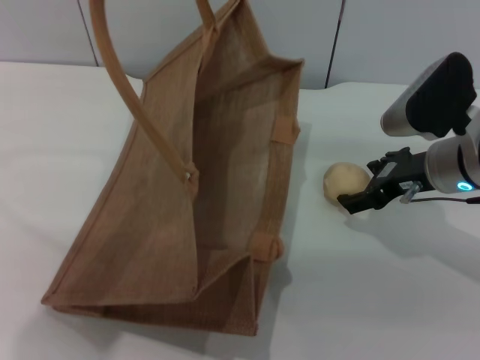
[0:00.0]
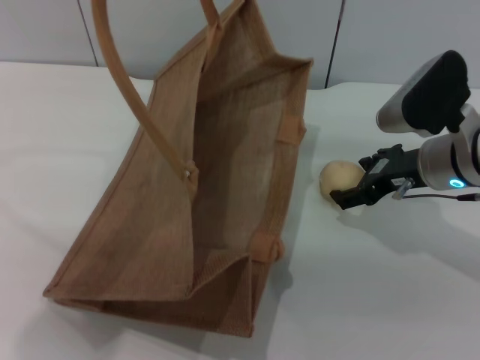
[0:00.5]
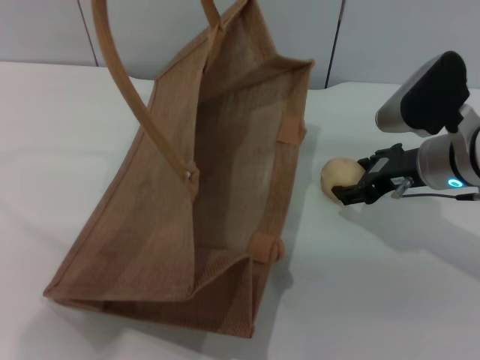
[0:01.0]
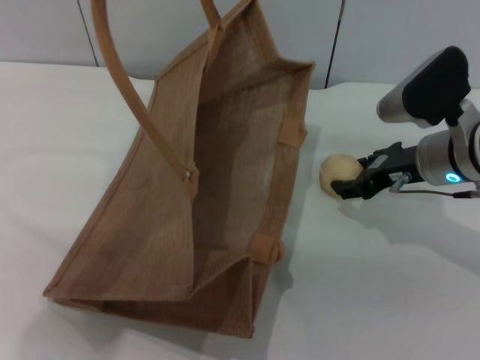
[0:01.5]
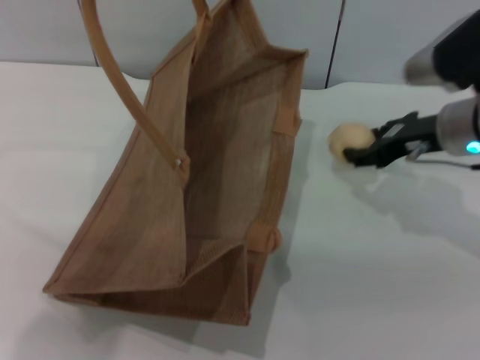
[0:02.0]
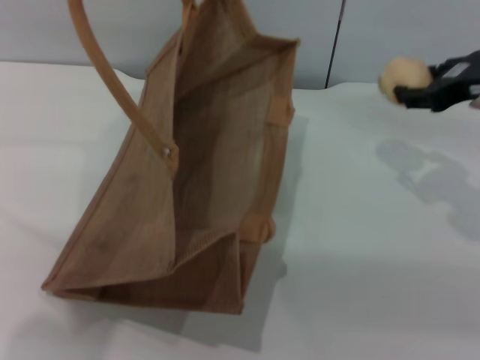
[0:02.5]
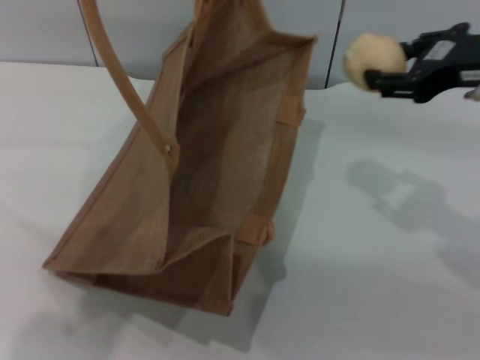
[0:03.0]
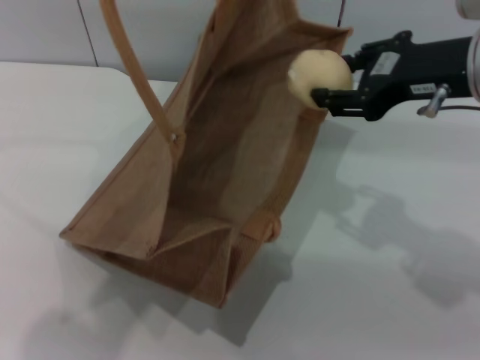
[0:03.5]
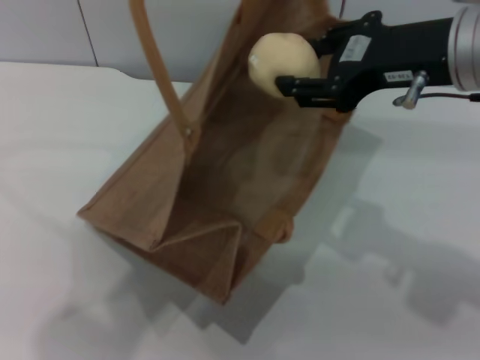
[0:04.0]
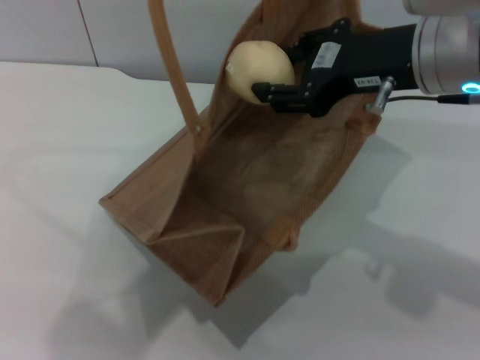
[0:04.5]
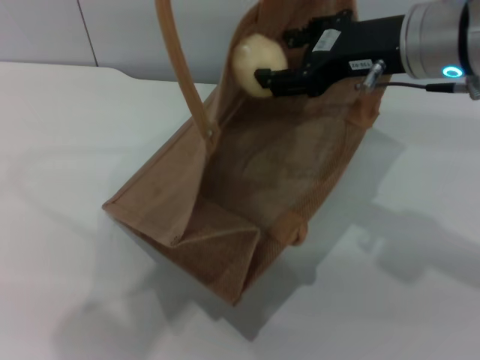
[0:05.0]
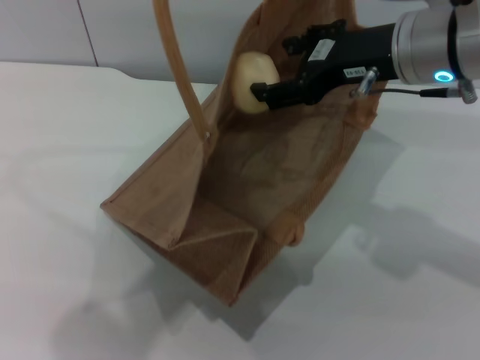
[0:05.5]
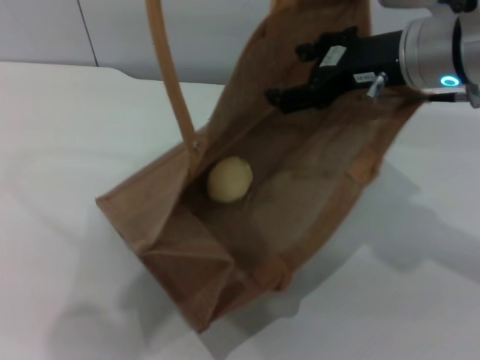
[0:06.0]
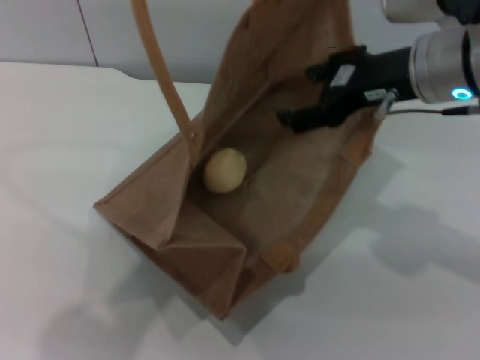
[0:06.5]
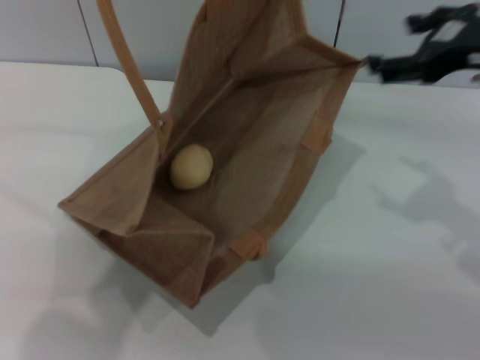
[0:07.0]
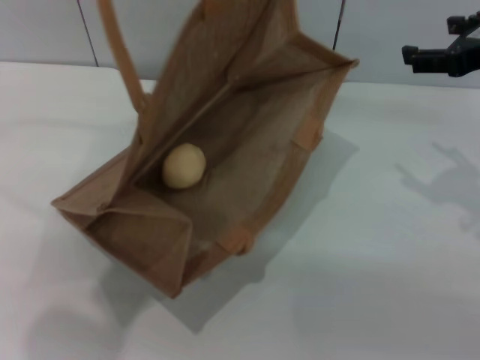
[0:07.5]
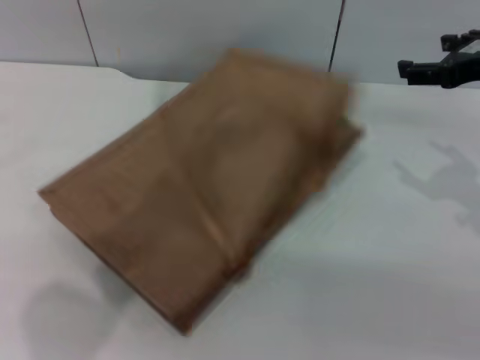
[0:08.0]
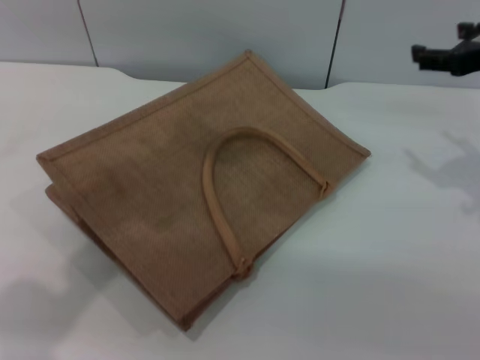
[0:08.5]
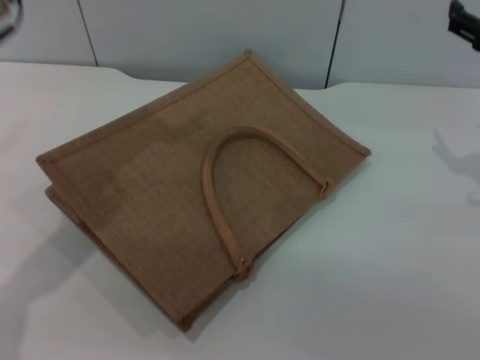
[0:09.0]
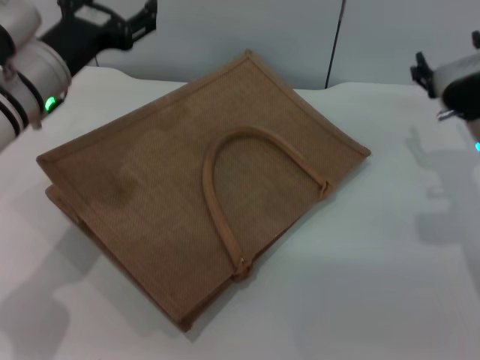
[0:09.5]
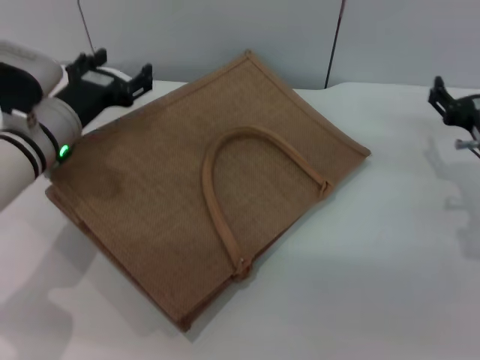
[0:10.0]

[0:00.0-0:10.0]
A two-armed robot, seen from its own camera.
Task of the whole recording: pick up the egg yolk pastry from the table and place it in the brown handbag.
Step, 0:00.0 to 0:02.0: Pick up the egg yolk pastry with the right gripper.
Step, 0:02.5 to 0:06.5: Place the egg yolk pastry into the woven bag with the right gripper.
Step, 0:07.0 to 0:08.5: Lower the woven bag with the left gripper to close it.
0:00.0 to 0:02.0: The right gripper closes.
0:02.0 to 0:04.0: The right gripper heads upward and backward, covering about 15 cm.
0:04.0 to 0:06.0: The right gripper ends up approximately 5 cm from where it was, and opens its fingers.
0:06.0 to 0:08.0: The right gripper shifts approximately 10 cm to the right. The left gripper opens.
0:08.0 to 0:10.0: The right gripper goes about 15 cm downward; the left gripper travels downward by about 30 cm.

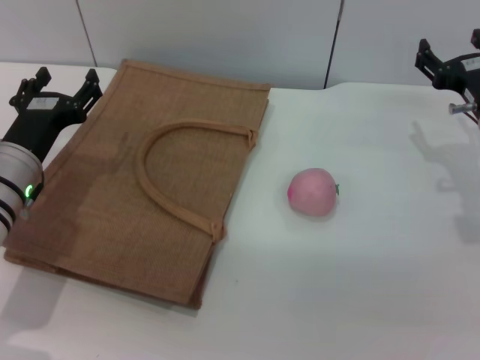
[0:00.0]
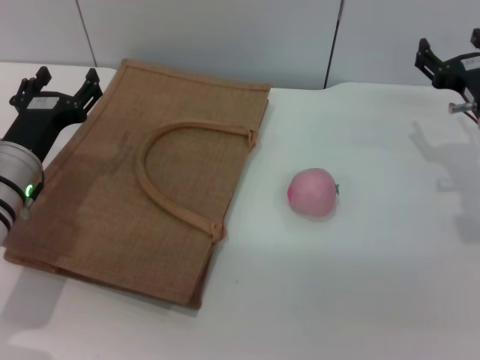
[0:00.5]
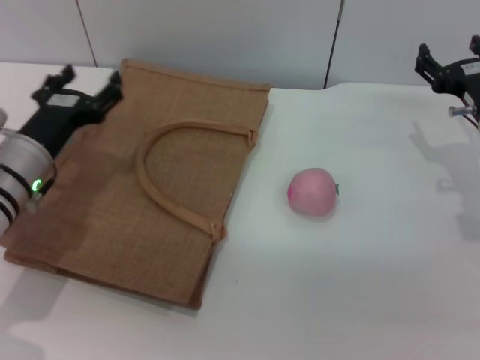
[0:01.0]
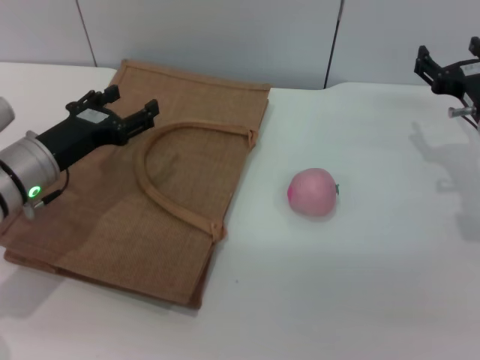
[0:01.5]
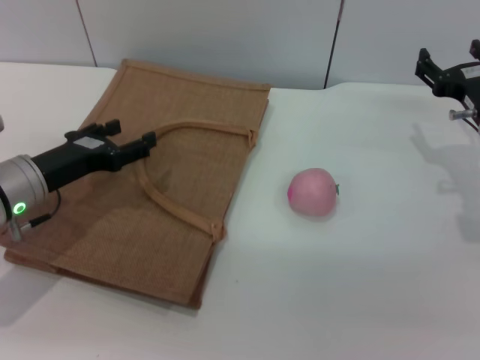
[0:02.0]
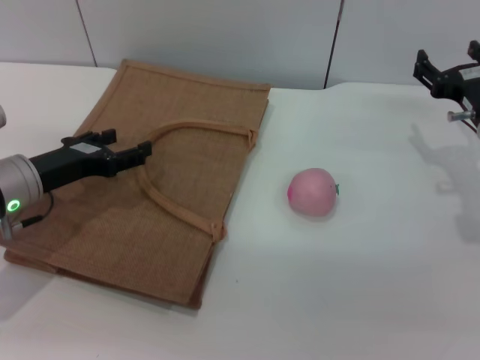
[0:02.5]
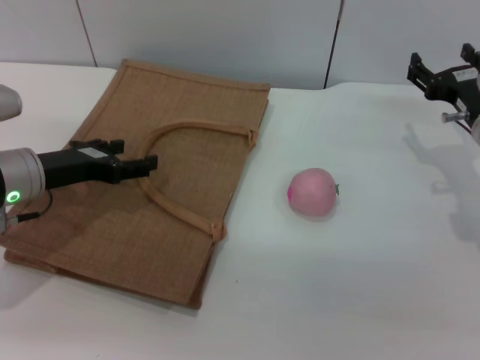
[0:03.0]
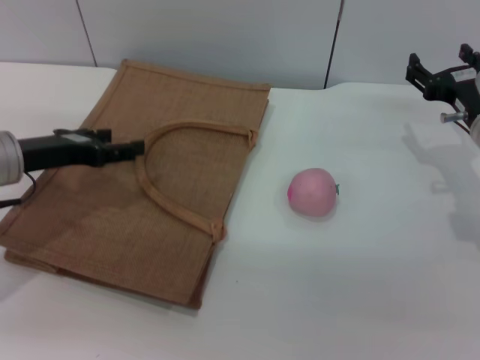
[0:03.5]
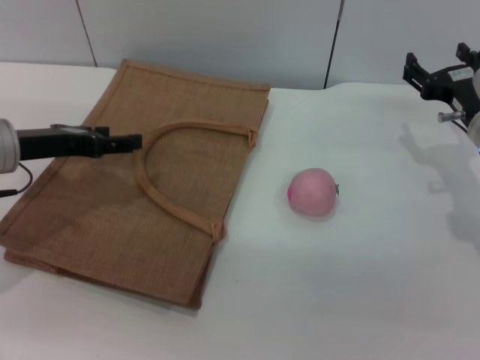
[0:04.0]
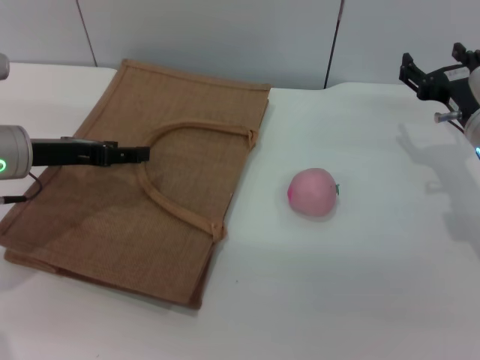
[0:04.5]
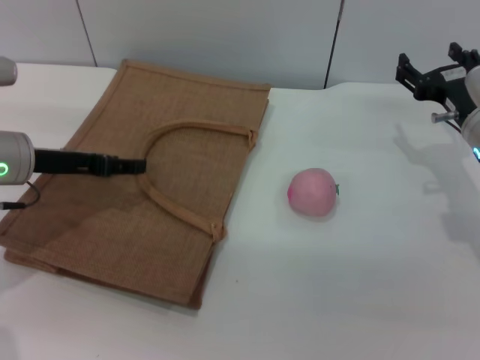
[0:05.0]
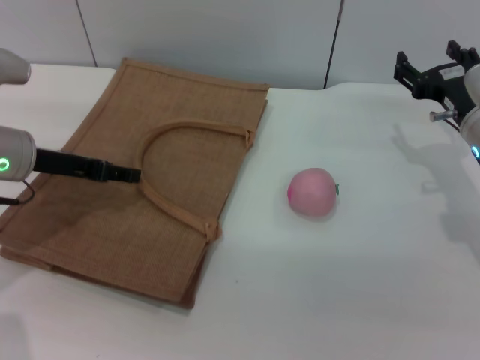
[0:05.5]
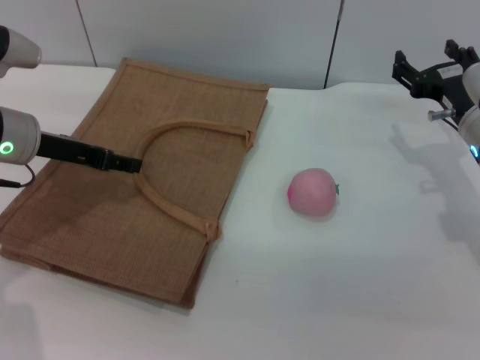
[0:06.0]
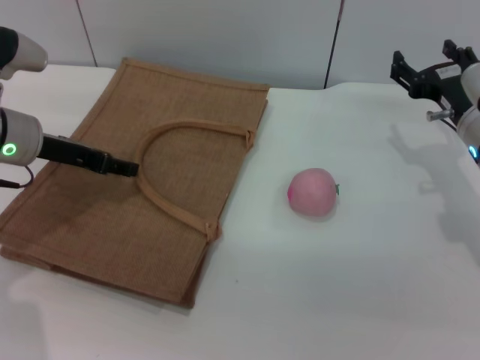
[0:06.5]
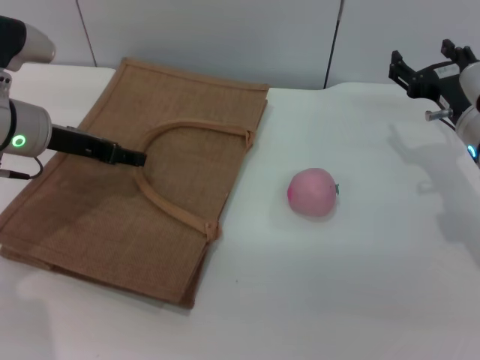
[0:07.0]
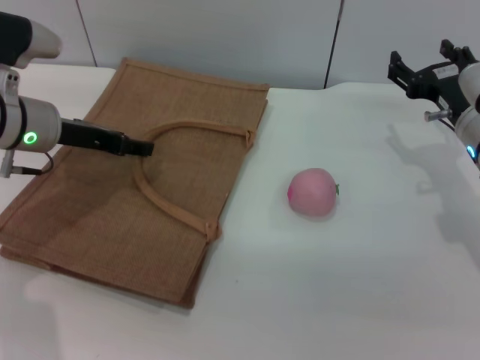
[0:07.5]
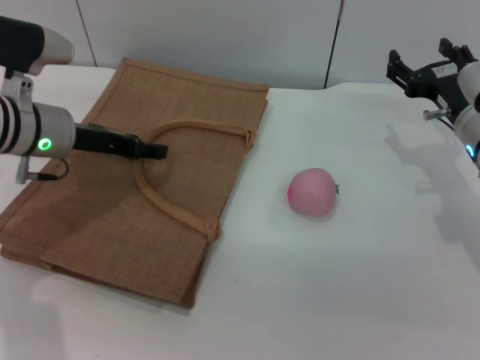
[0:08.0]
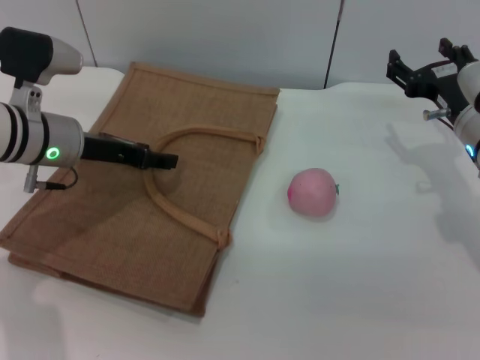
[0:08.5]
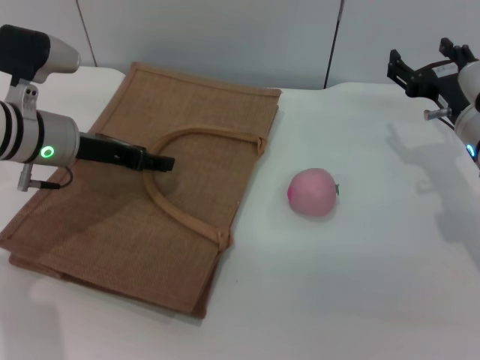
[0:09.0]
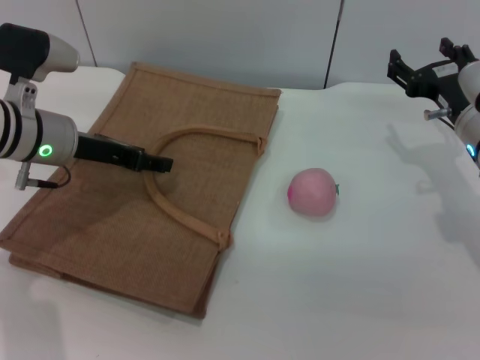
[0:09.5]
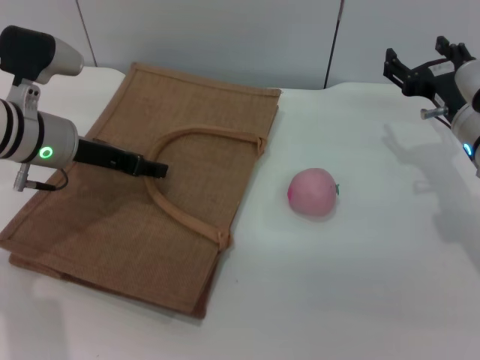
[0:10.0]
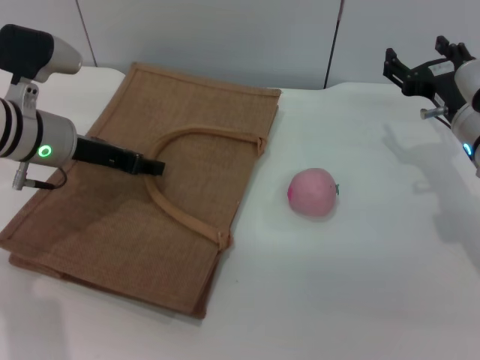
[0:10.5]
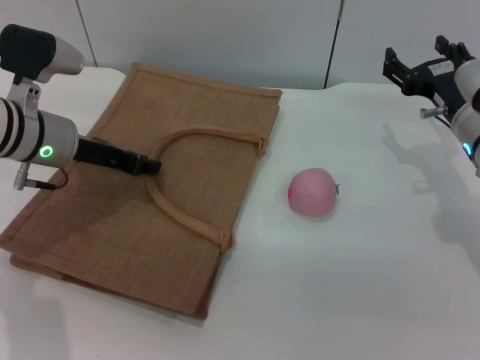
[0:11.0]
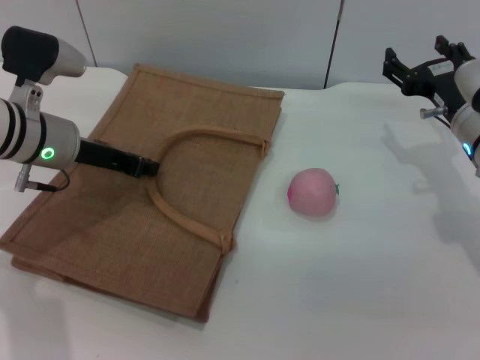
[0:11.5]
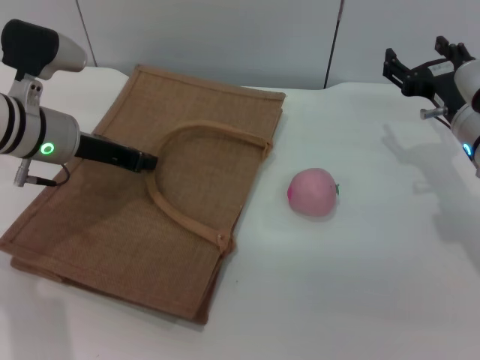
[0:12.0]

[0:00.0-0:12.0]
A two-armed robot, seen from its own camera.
Task of the whole recording: pick up the peach from the table and place it in the brown handbag.
0:02.0 to 0:04.0: The left gripper is displaced upward by about 5 cm.
0:04.0 to 0:06.0: The grippers make only small movements.
0:06.0 to 0:10.0: The grippers make only small movements.
0:10.0 to 0:12.0: The left gripper closes up.

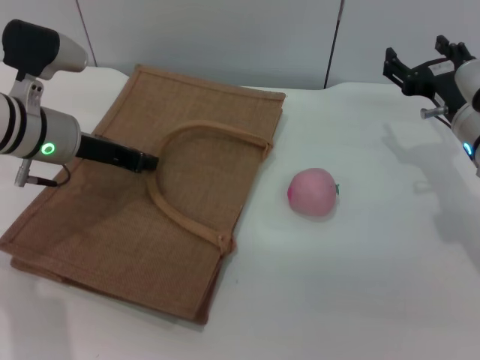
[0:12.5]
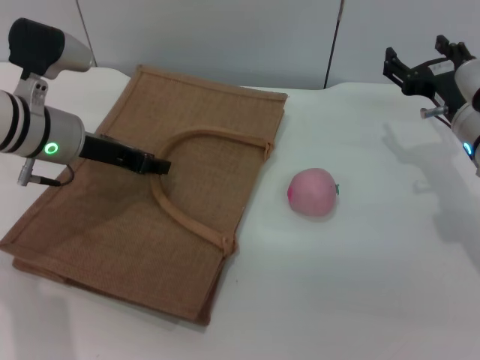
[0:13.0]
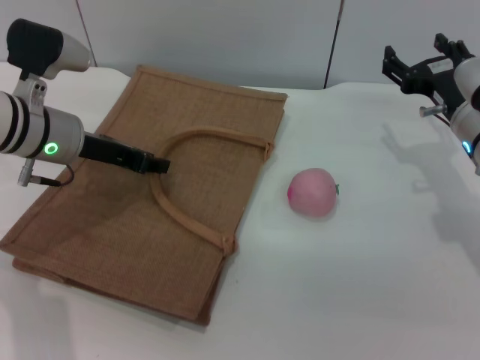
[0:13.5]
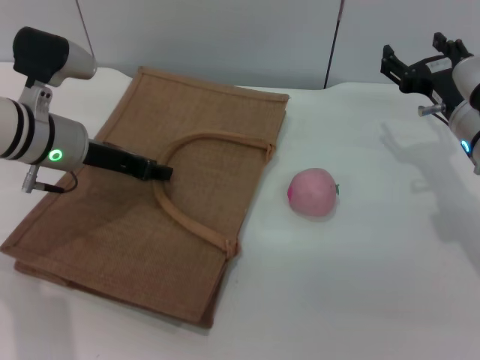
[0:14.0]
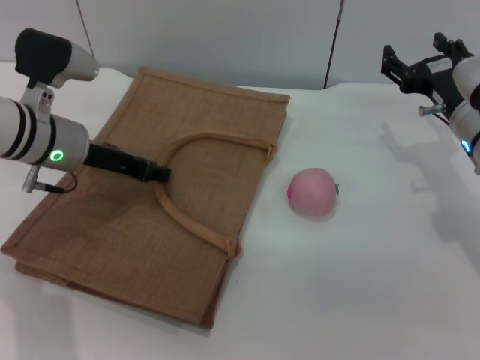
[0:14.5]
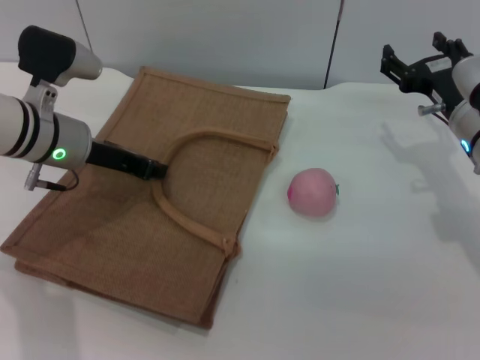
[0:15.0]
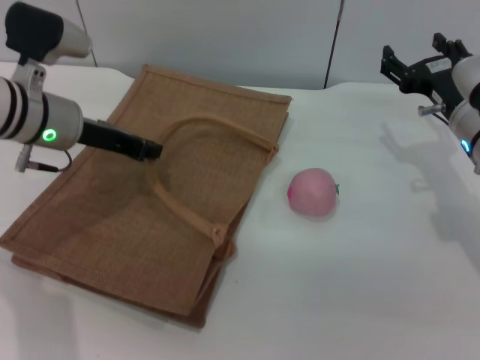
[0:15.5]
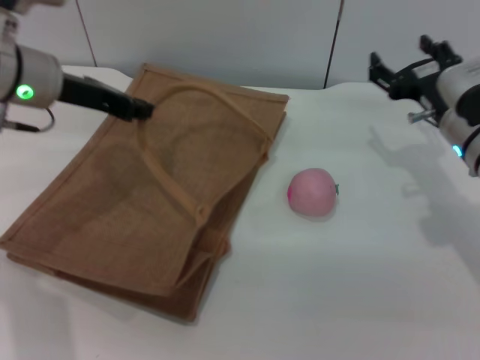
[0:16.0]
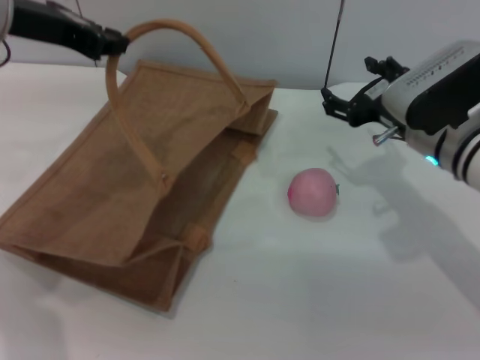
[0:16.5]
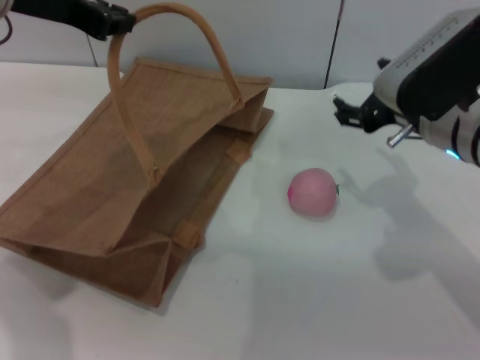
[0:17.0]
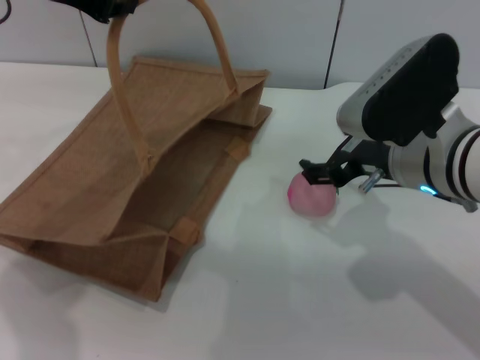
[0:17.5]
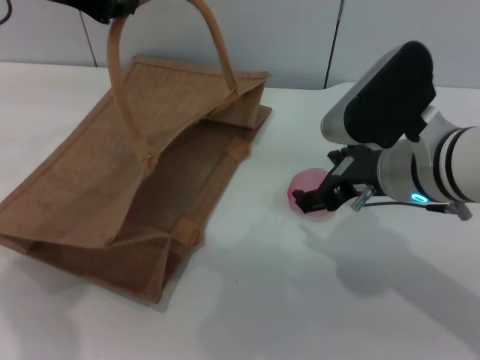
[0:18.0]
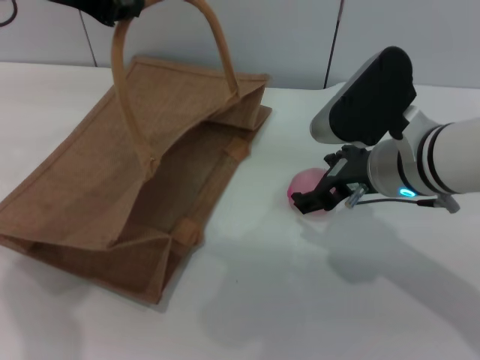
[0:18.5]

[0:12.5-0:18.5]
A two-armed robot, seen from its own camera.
Task of the whole recording: pick up the peach from the table and place it in the brown handbag.
Step, 0:12.5 to 0:15.5: Lift the woven bag with the left gripper to open it.
0:12.5 to 0:14.5: Both grippers stay about where they are.
0:14.5 to 0:16.5: The left gripper shifts approximately 15 cm upward. Meanwhile the right gripper shifts by about 5 cm.
0:16.5 to 0:18.5: The right gripper shifts roughly 5 cm to the left.
